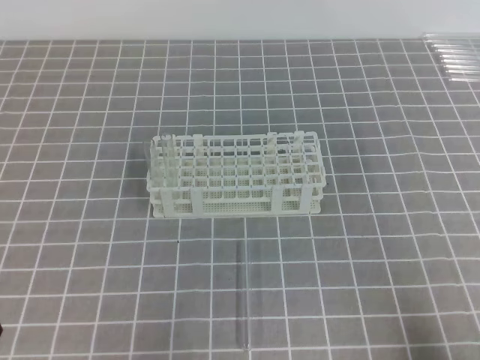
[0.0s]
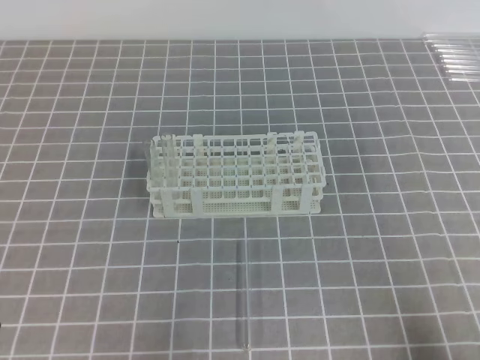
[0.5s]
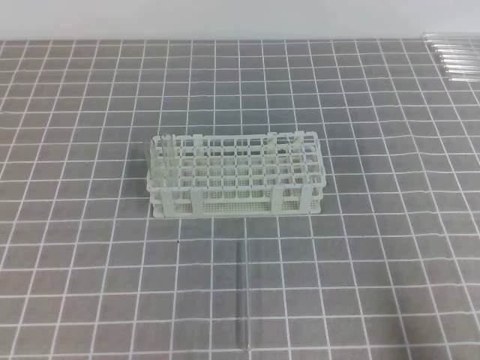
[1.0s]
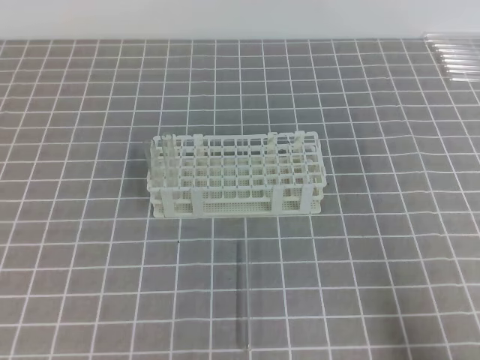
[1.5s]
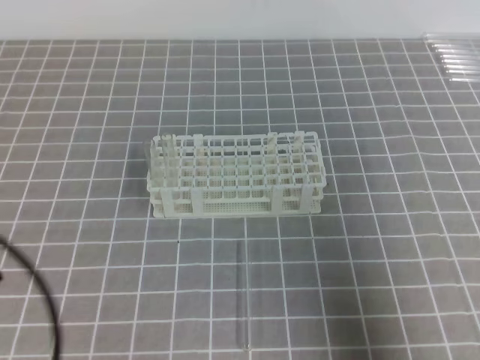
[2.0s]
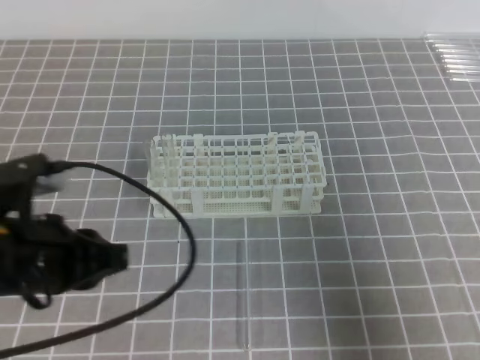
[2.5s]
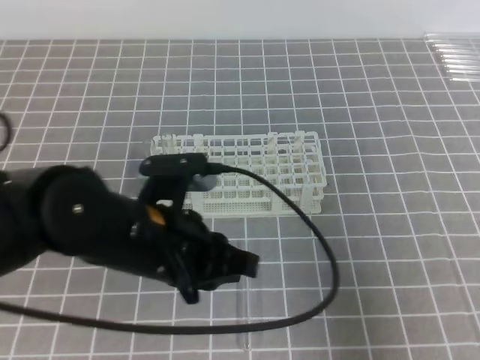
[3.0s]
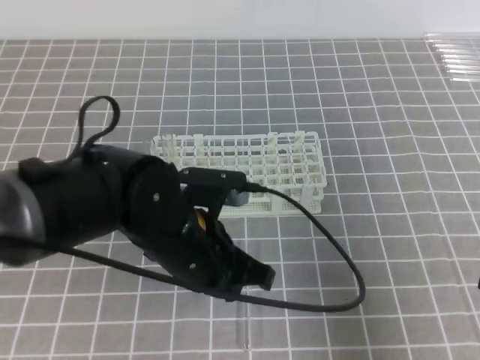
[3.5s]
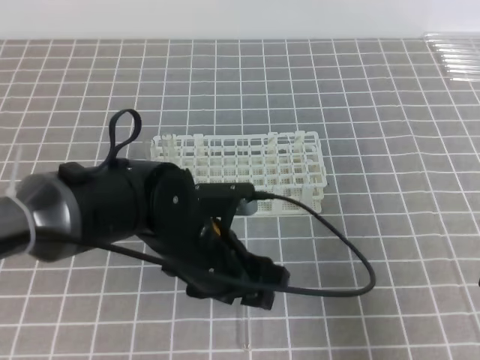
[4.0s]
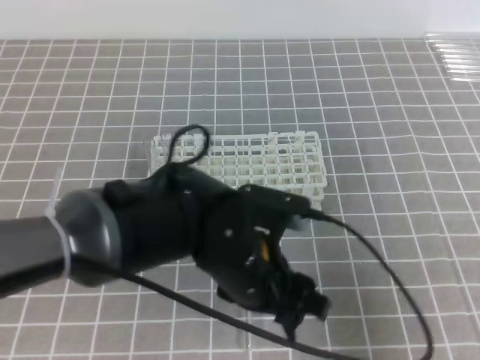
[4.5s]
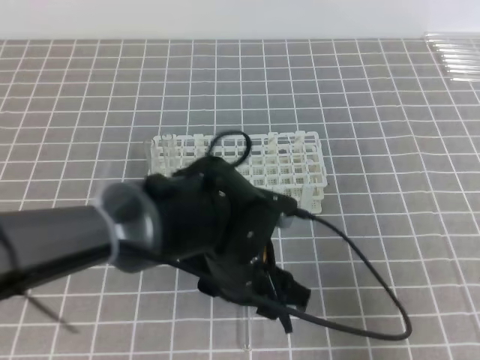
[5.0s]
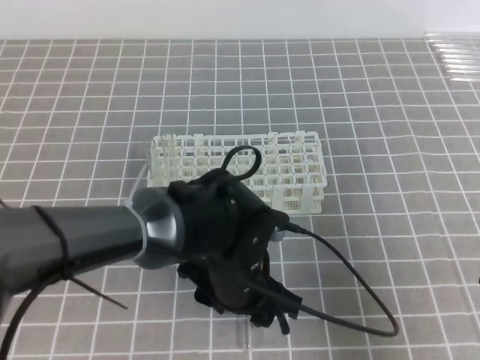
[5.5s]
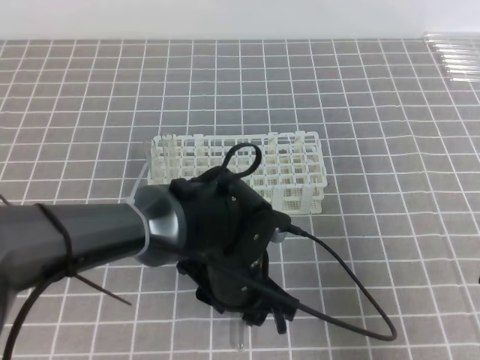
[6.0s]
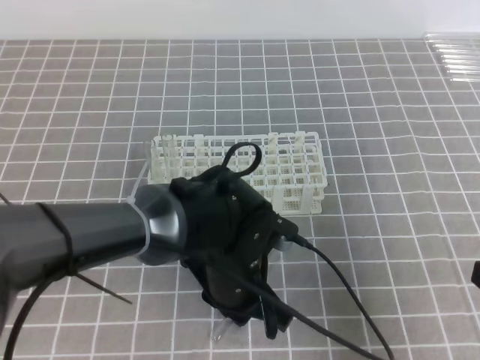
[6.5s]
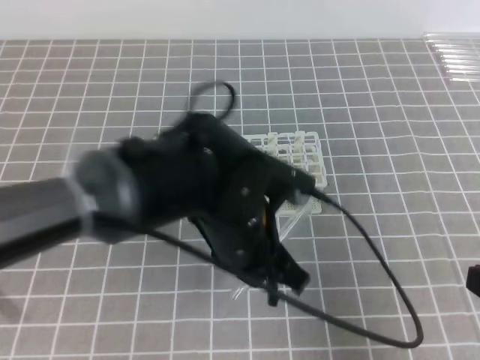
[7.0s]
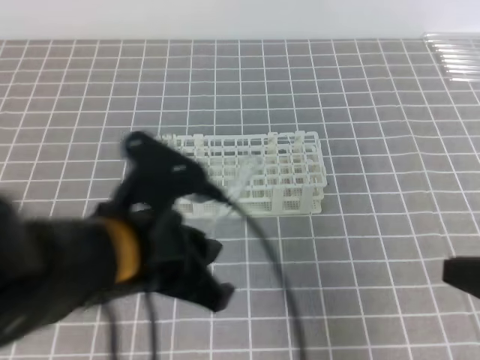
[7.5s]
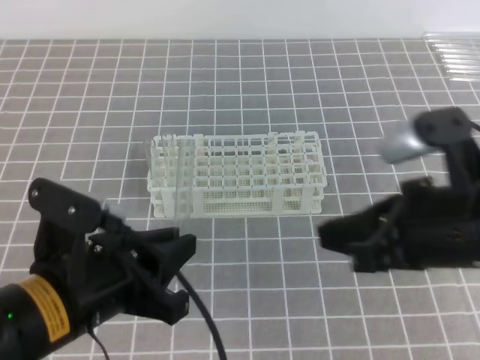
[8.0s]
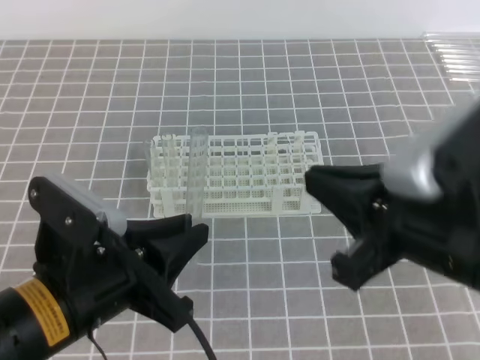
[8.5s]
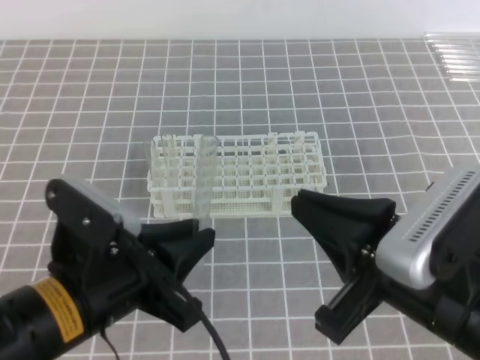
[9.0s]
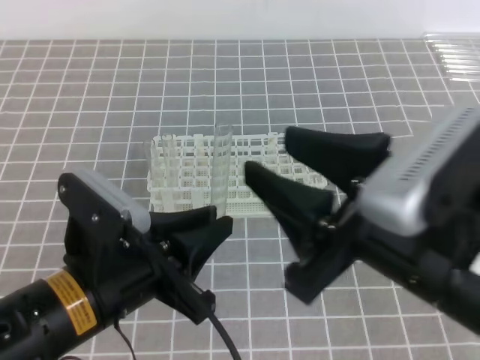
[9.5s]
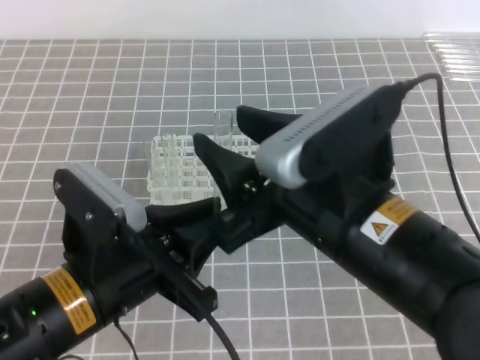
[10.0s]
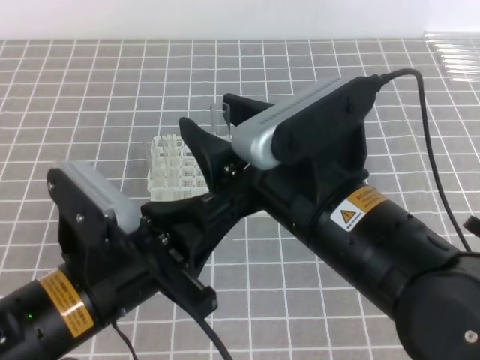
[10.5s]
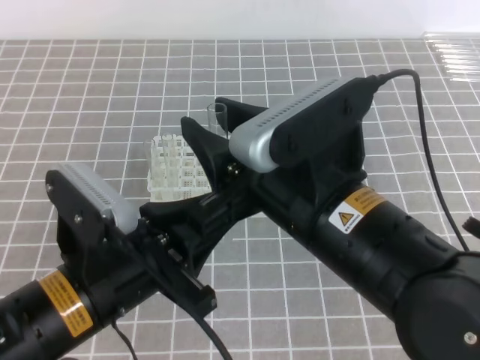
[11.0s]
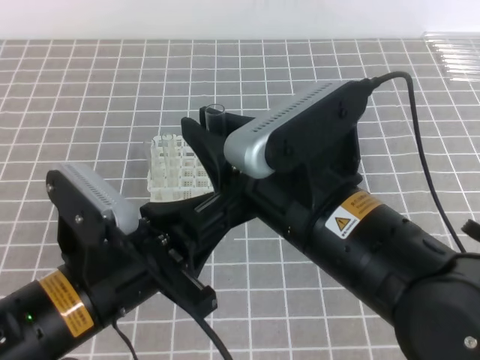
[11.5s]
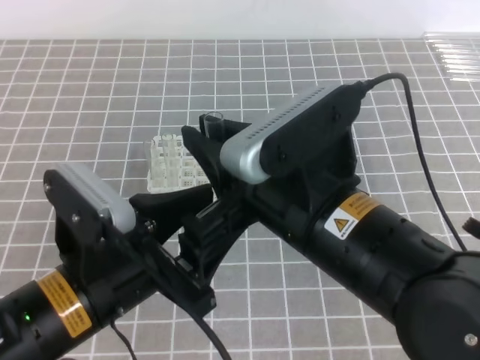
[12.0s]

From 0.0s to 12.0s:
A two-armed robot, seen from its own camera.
From 0.0s to 2.0s: Both grippers move upward, some 10 cm.
From 2.0s to 4.0s: The left gripper goes roughly 25 cm to the right, forward and downward, and opens its fingers.
From 4.0s to 6.0s: The left gripper shifts by roughly 5 cm.
From 6.0s to 8.0s: The left gripper goes some 20 cm to the left, upward and backward, and closes. Meanwhile the right gripper is displaced to the left, forward and upward by roughly 10 cm.
From 8.0s to 10.0s: The right gripper travels to the left by about 10 cm, and opens its fingers.
From 10.0s to 12.0s: The left gripper opens up. Meanwhile the right gripper closes its fingers.

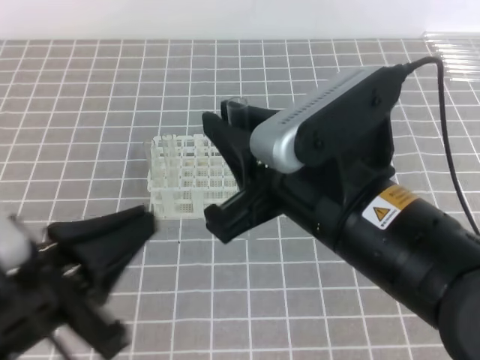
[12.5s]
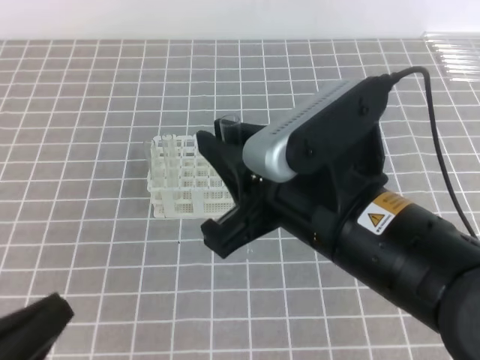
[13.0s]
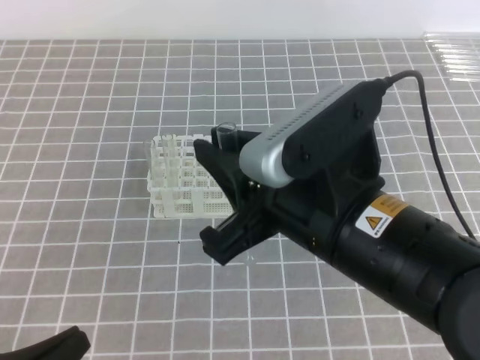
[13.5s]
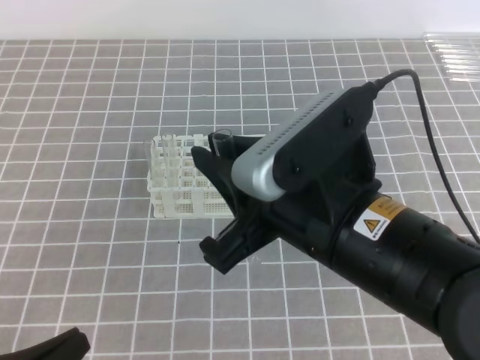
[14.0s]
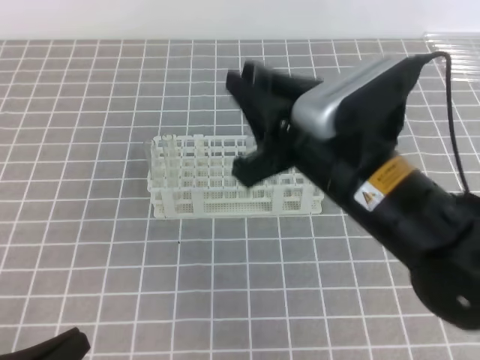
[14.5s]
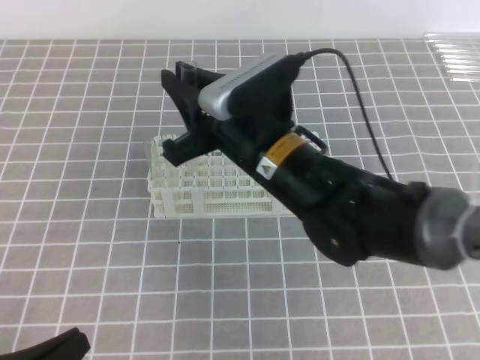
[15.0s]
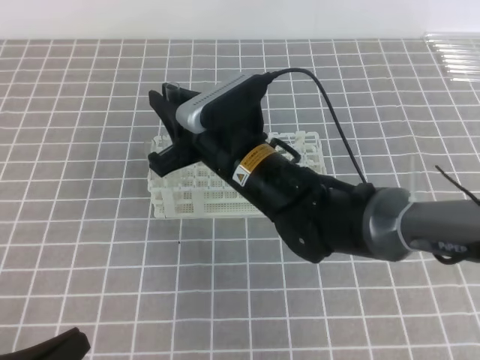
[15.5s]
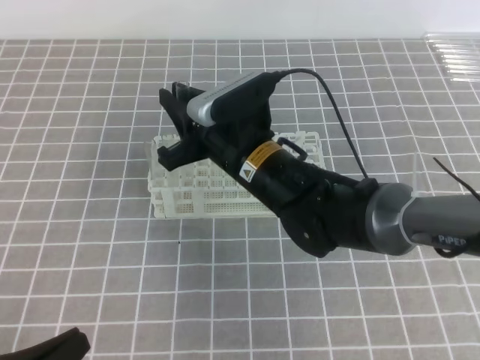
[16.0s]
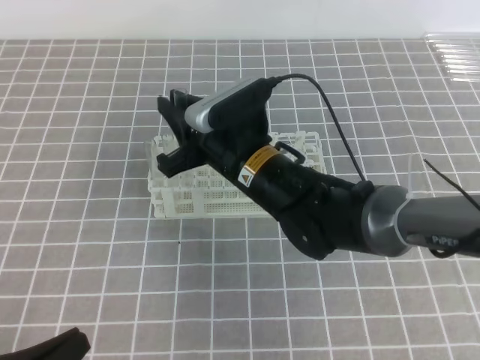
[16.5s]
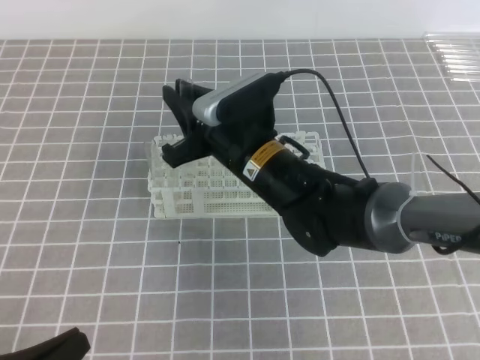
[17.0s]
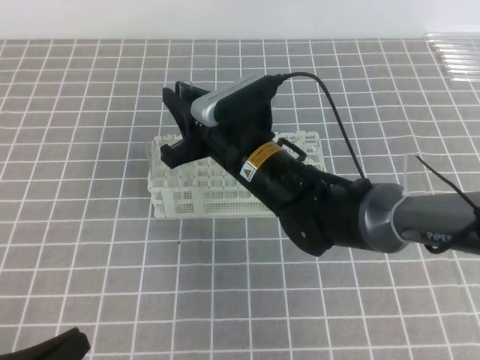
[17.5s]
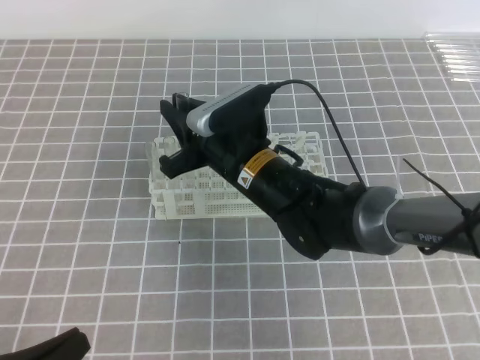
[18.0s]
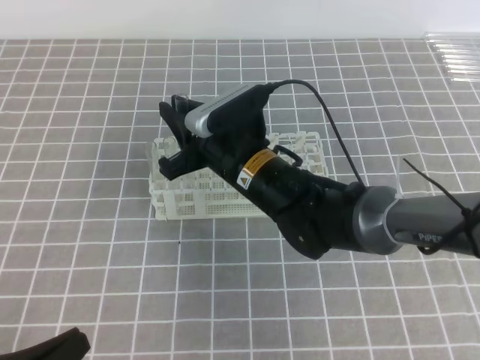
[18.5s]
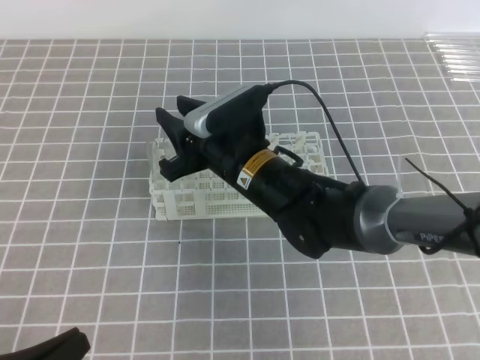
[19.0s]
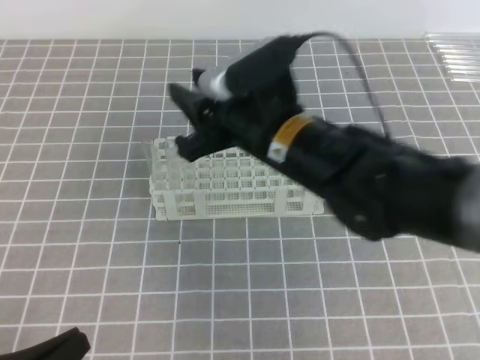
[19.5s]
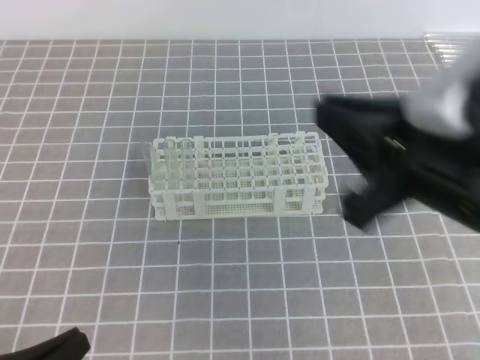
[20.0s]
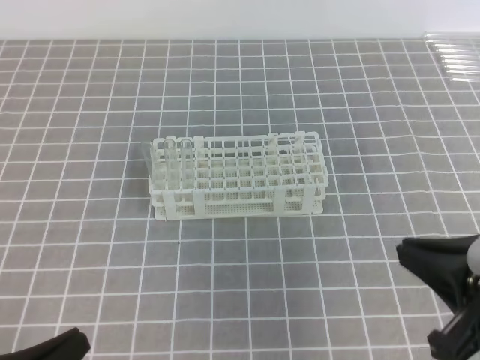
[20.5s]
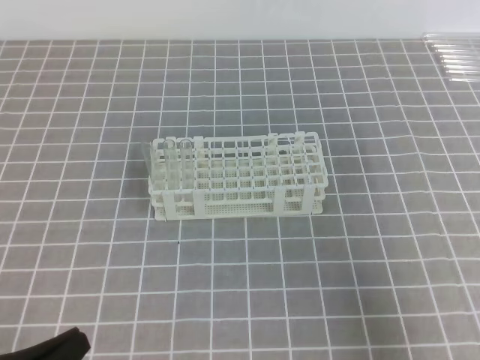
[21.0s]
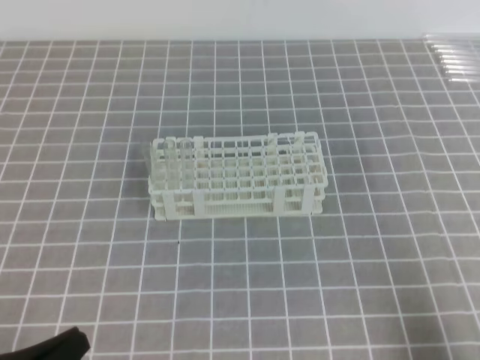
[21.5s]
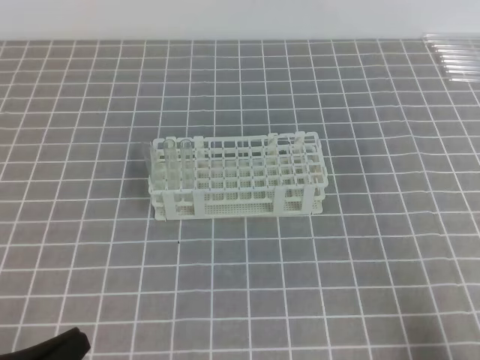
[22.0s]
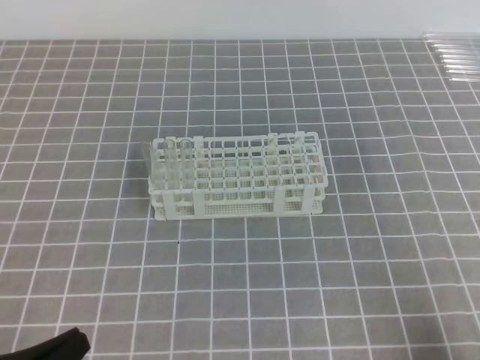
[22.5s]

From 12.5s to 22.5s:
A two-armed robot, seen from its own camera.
From 12.5s to 14.5s: The right gripper changes place by some 5 cm, while the left gripper heads downward, to the left and backward, covering about 15 cm.
From 14.5s to 16.5s: The right gripper moves forward, downward and to the left, roughly 15 cm.
From 16.5s to 18.5s: The grippers move only a little.
From 18.5s to 20.5s: The right gripper travels to the right, backward and upward by approximately 30 cm, and opens, then closes once more.
From 20.5s to 22.5s: The right gripper travels downward, to the right and backward by some 15 cm.
